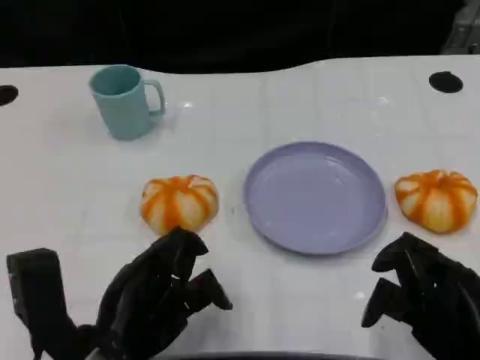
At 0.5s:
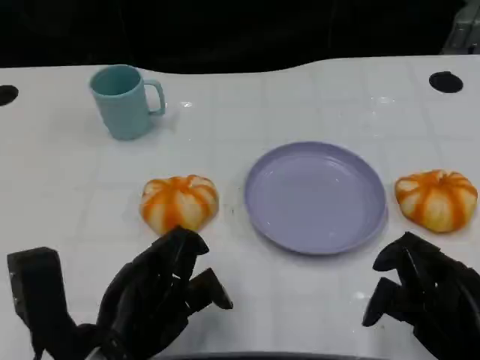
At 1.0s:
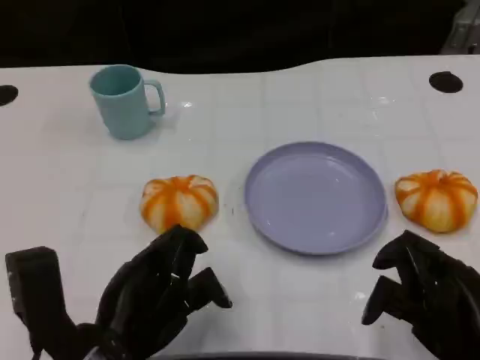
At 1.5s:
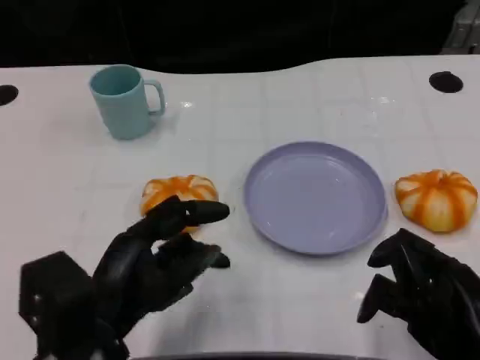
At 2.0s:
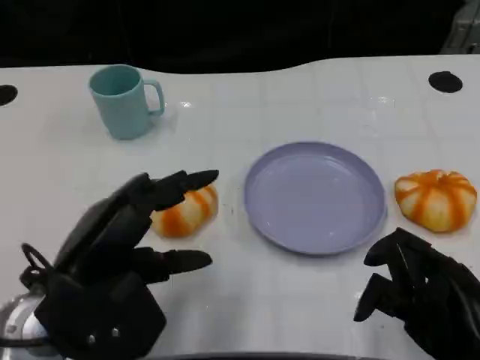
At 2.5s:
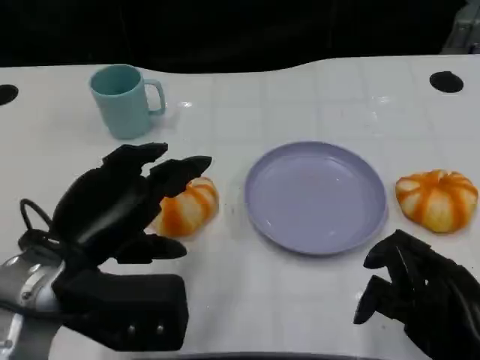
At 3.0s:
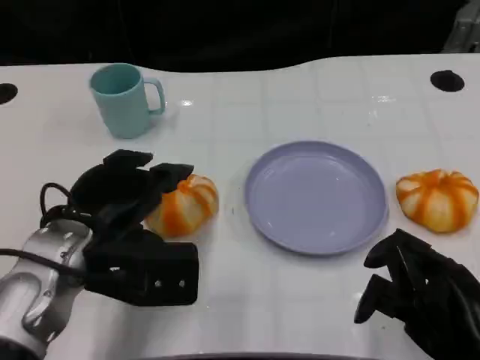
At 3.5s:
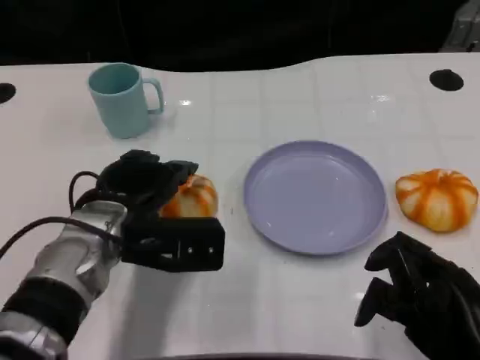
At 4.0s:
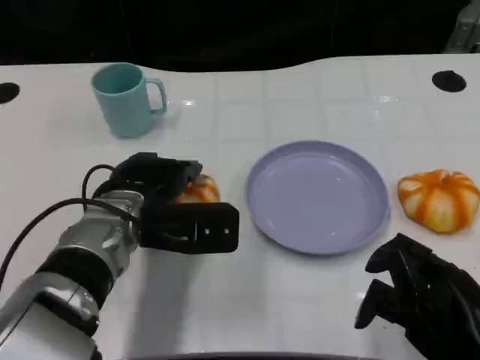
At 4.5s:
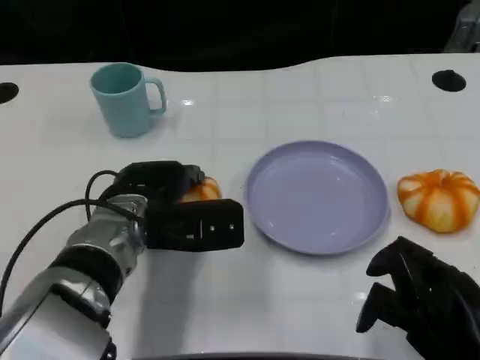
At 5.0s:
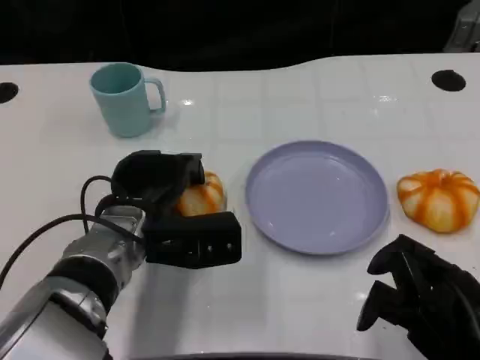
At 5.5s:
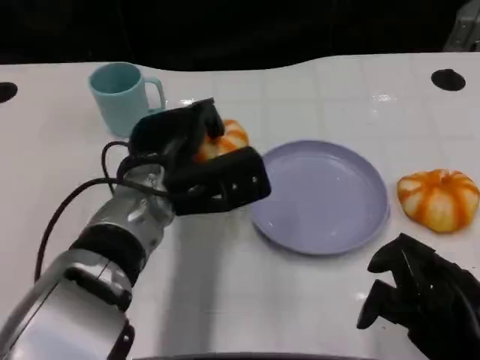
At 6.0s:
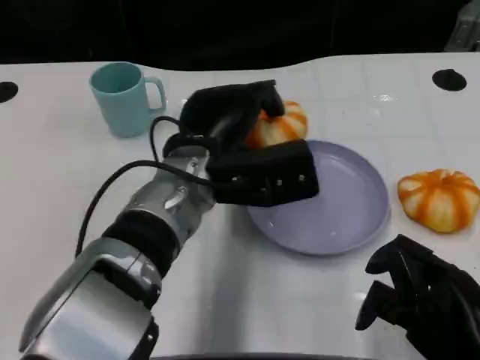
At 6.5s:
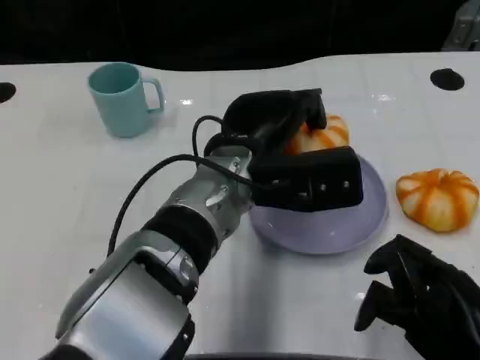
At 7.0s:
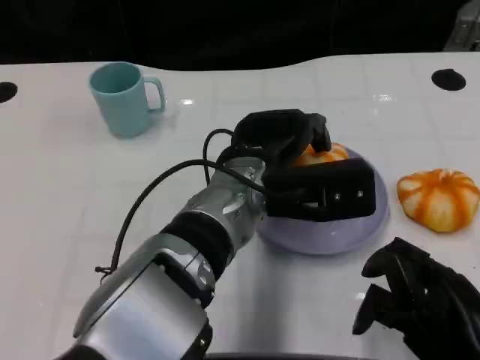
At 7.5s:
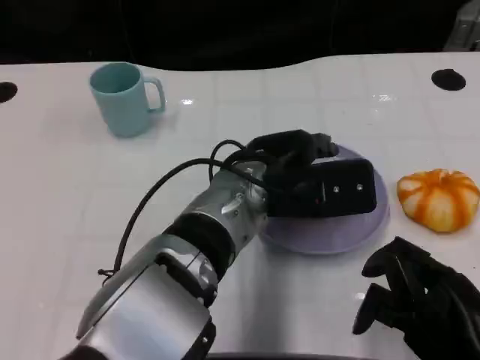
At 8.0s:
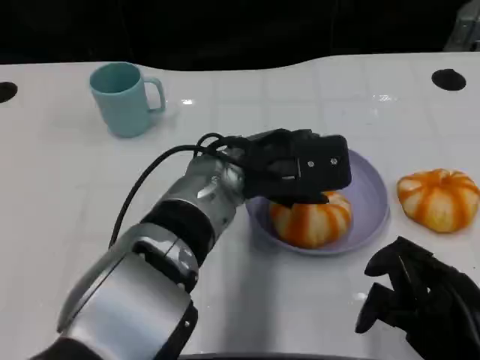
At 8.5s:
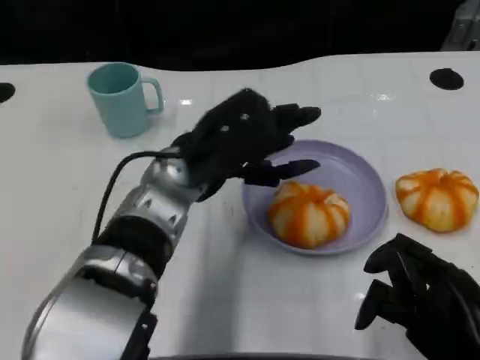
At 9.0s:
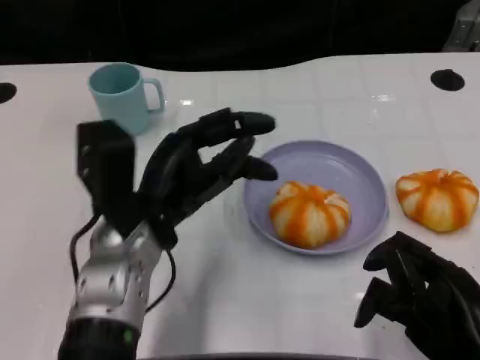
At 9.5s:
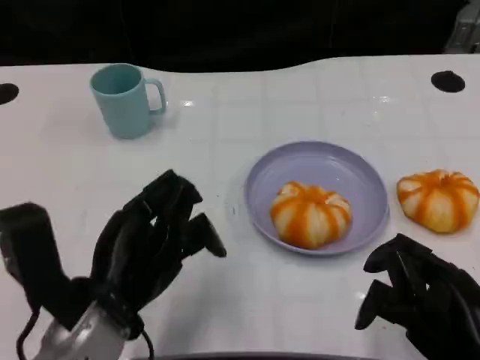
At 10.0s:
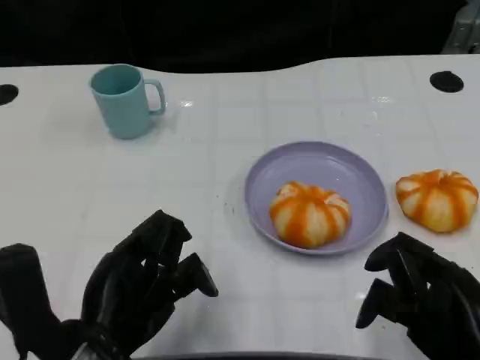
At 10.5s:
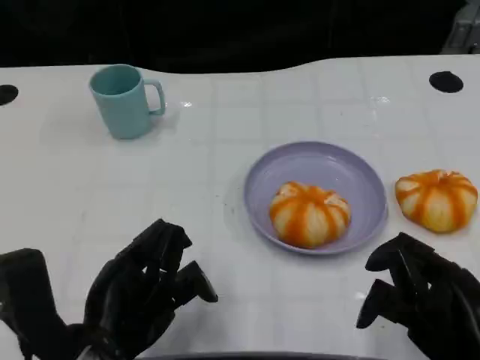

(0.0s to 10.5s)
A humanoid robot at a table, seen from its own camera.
Task of the whole recording: Grasp the bread from the table and place it into the plate.
0.0s - 2.0s: The left hand is displaced upward by some 5 cm.
2.0s - 4.0s: The left hand is displaced forward and to the right by about 15 cm.
4.0s - 6.5s: The left hand travels to the right and upward by some 15 cm.
6.5s - 8.5s: The left hand moves to the left, about 5 cm.
8.5s - 10.5s: The left hand moves backward and to the left, about 20 cm.

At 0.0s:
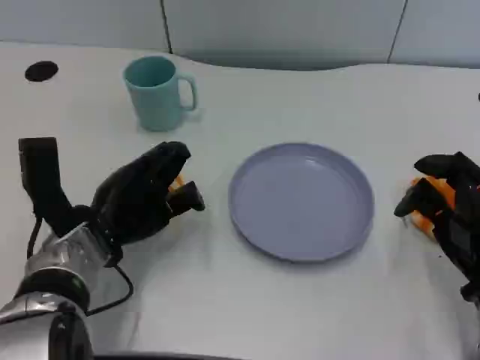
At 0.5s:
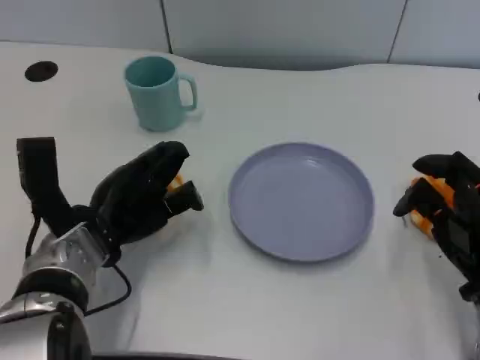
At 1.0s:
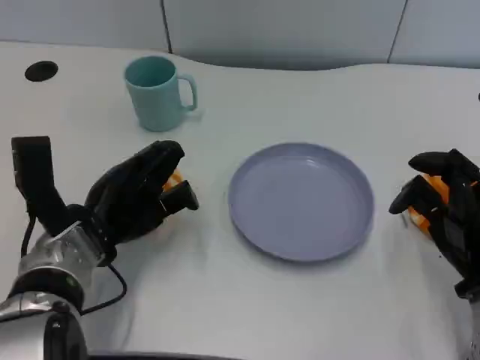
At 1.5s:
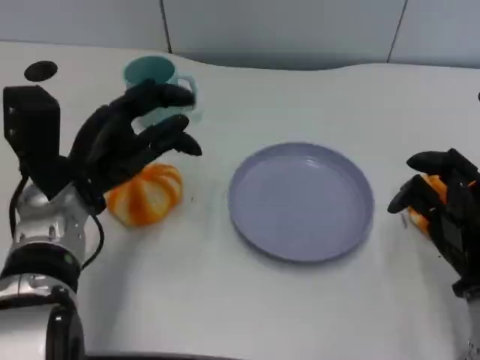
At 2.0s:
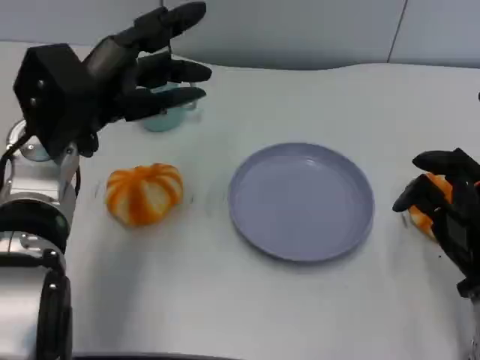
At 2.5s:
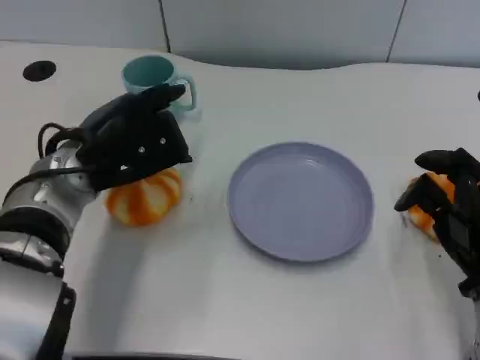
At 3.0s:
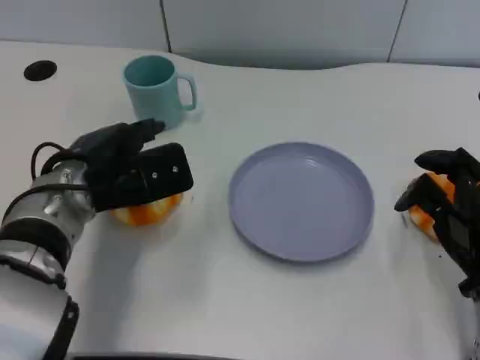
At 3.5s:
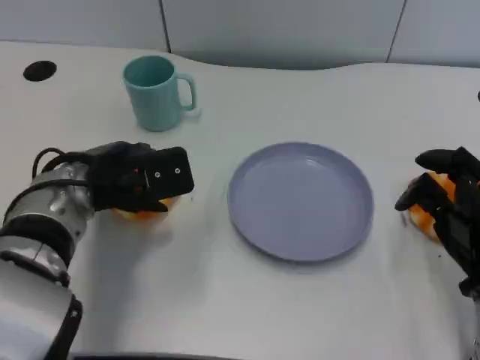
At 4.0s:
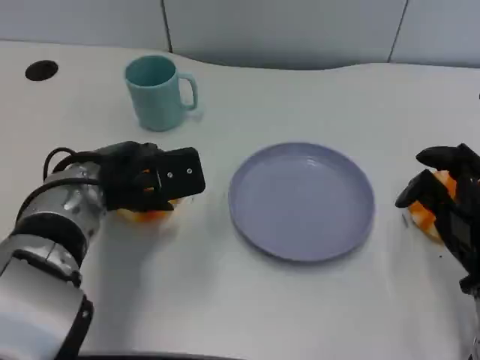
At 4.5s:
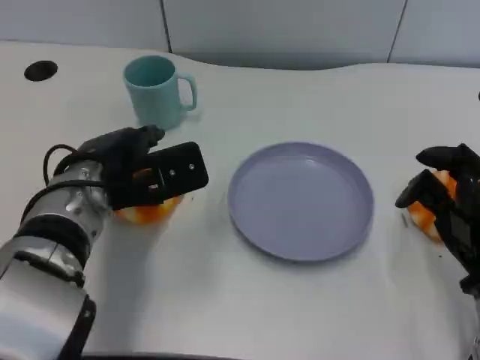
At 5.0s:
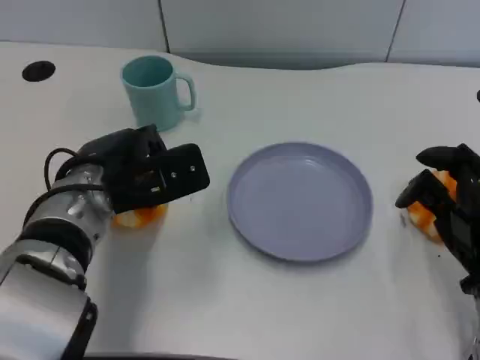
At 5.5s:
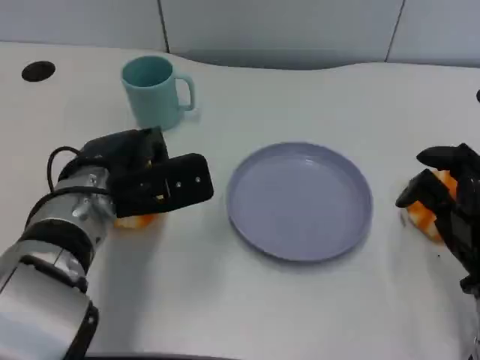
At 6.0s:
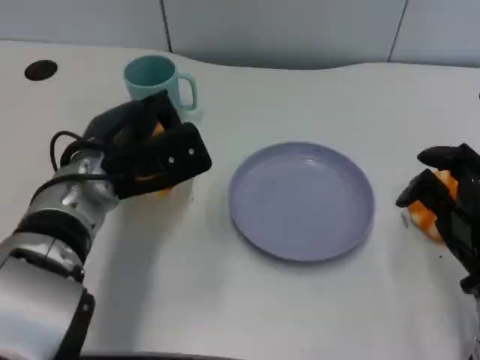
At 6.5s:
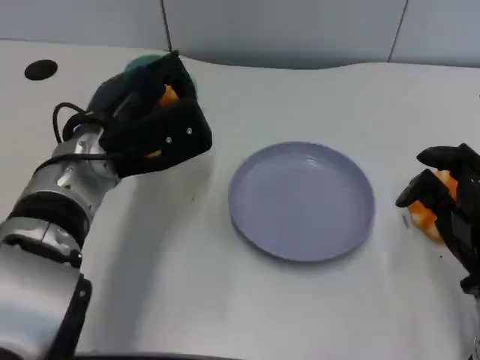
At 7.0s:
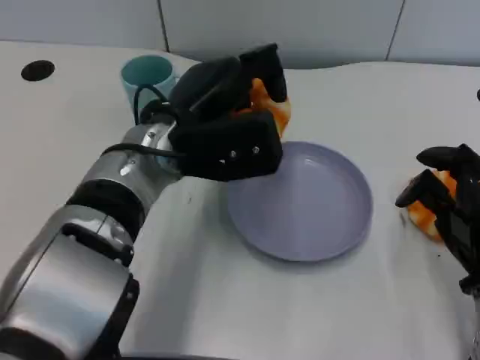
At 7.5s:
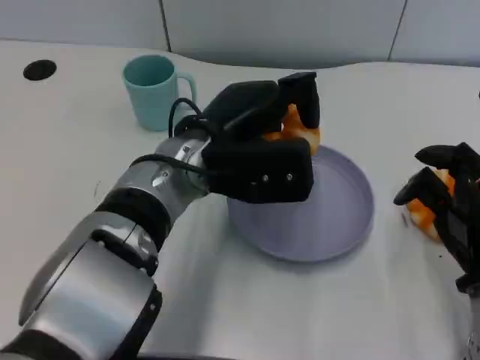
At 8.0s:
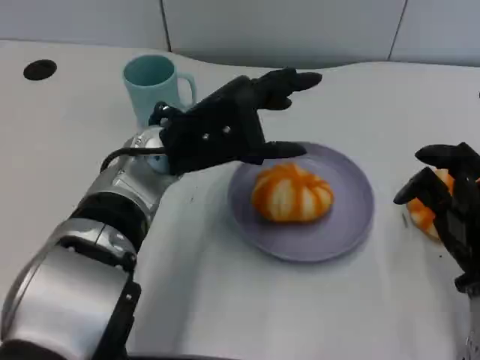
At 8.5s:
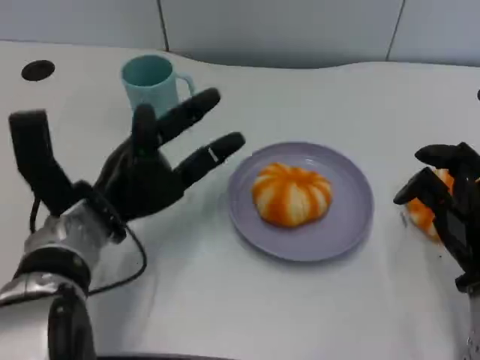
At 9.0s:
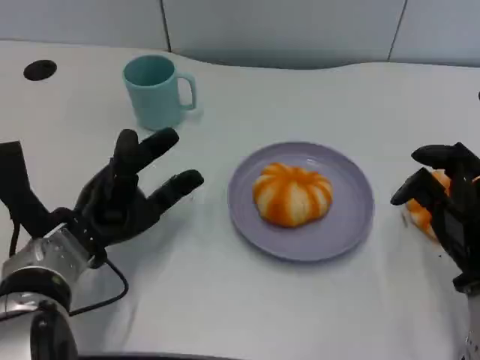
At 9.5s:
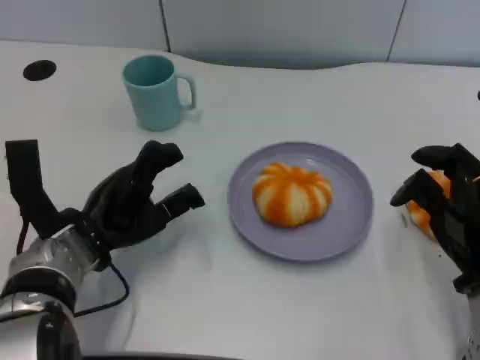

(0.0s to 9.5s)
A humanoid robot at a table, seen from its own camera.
Task of the whole recording: Grasp the bread from the table and place it into the plate.
0.0s - 2.0s: The left hand moves upward, some 10 cm.
2.0s - 4.0s: The left hand moves downward, some 5 cm.
4.0s - 5.5s: The hands make only small movements.
5.5s - 7.5s: The left hand is displaced to the right by roughly 10 cm.
7.5s - 9.5s: The left hand moves to the left and downward, approximately 15 cm.

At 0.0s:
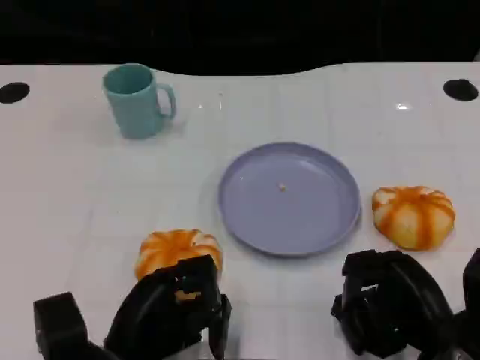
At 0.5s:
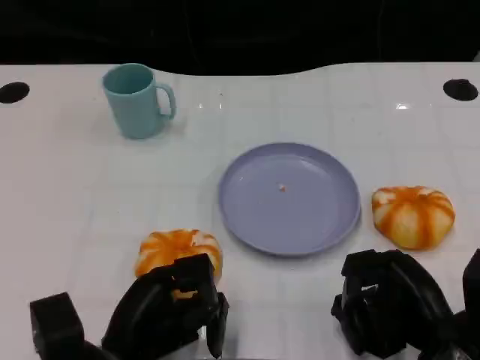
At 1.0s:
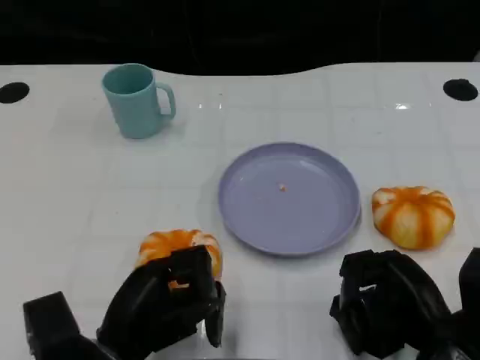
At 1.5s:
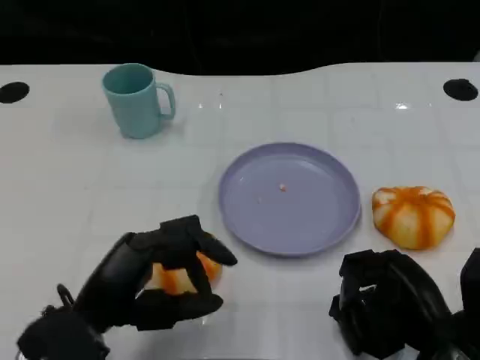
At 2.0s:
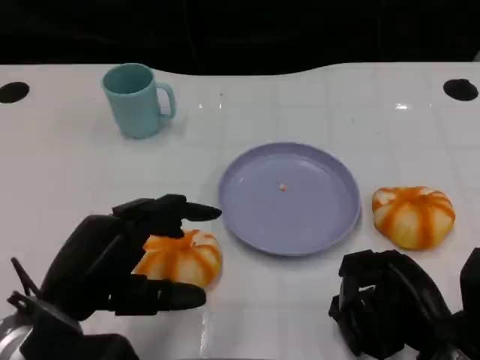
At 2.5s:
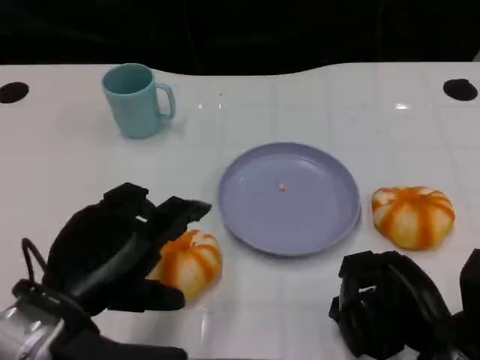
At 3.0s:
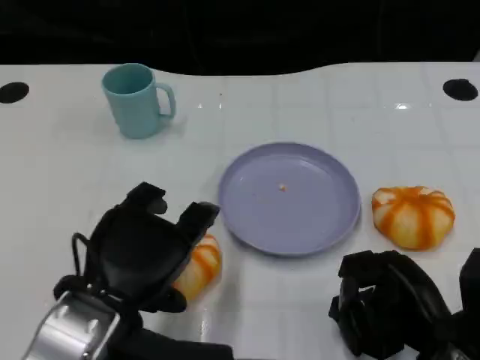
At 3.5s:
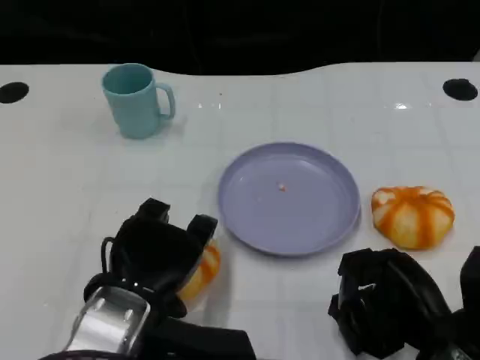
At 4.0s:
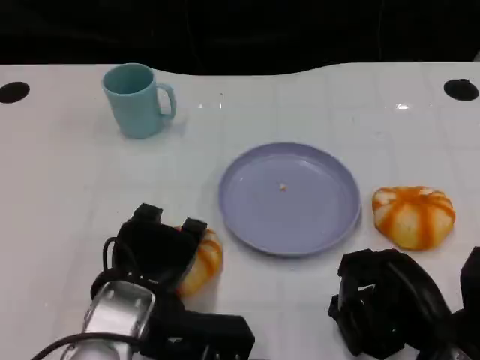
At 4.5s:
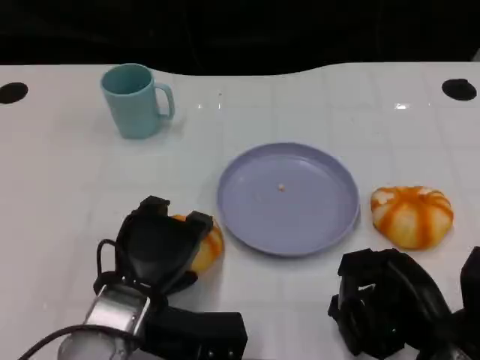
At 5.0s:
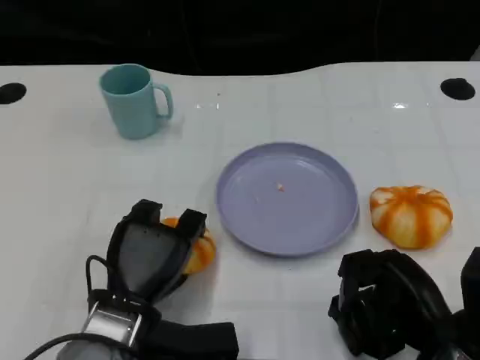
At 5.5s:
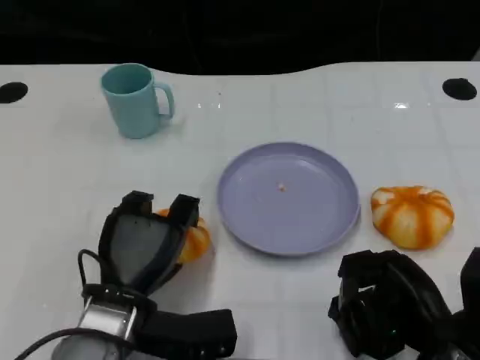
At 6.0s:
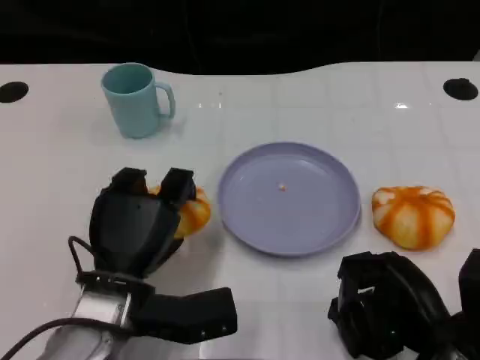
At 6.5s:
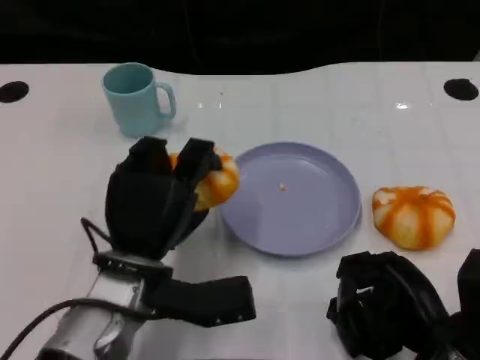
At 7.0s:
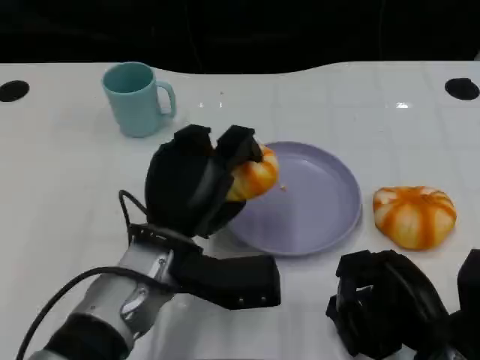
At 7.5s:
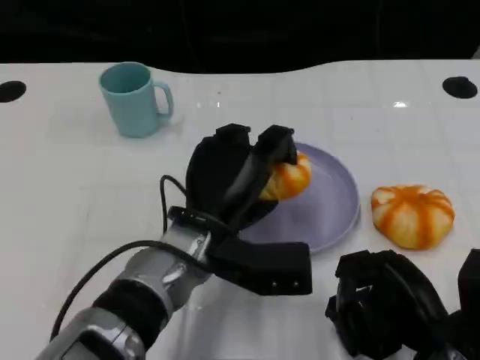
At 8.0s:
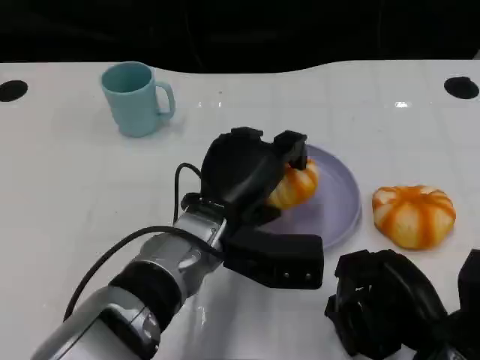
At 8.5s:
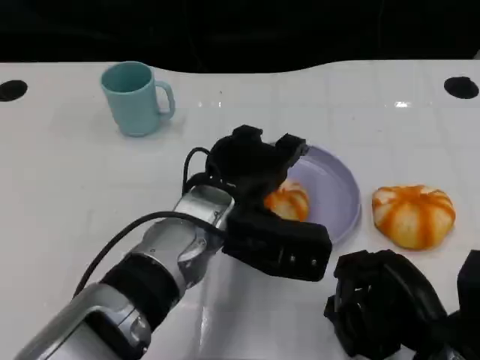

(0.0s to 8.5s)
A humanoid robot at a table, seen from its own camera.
Task of the whole recording: Grasp the bread from the table and place it into the plate.
0.0s - 2.0s: The left hand shifts about 10 cm upward.
2.0s - 4.0s: The left hand moves to the right, roughly 5 cm.
6.5s - 8.5s: The left hand goes some 5 cm to the right.
